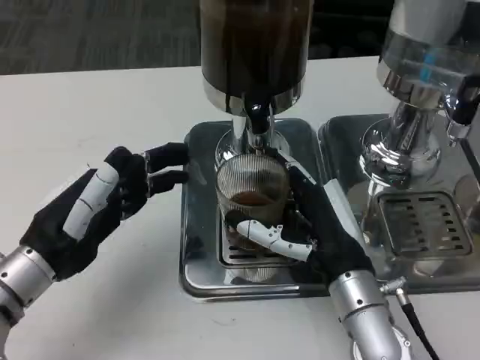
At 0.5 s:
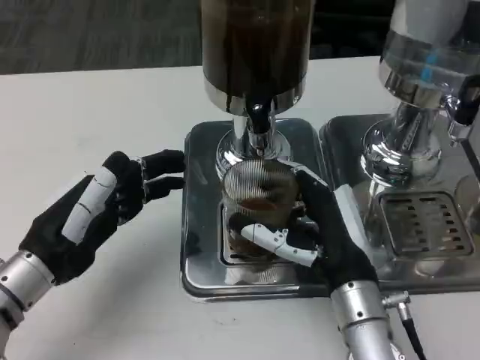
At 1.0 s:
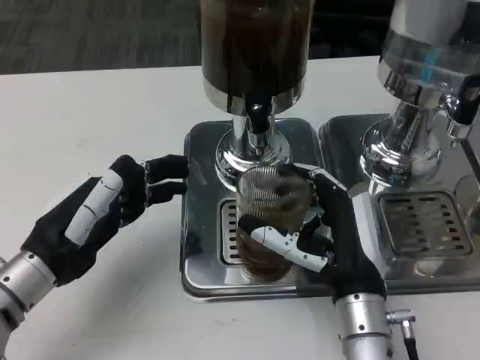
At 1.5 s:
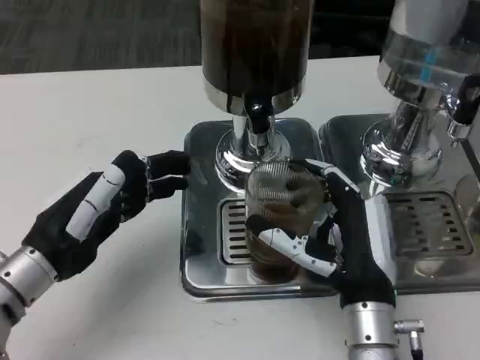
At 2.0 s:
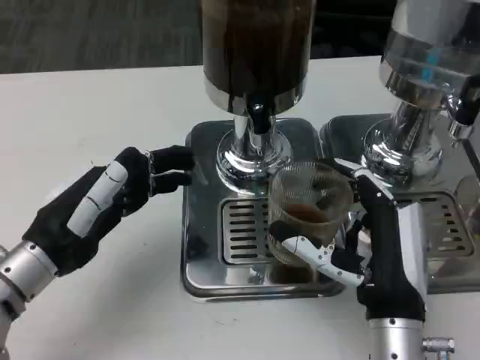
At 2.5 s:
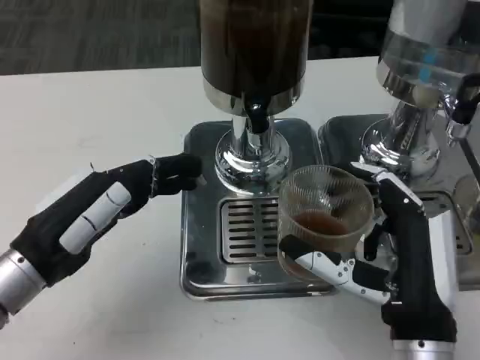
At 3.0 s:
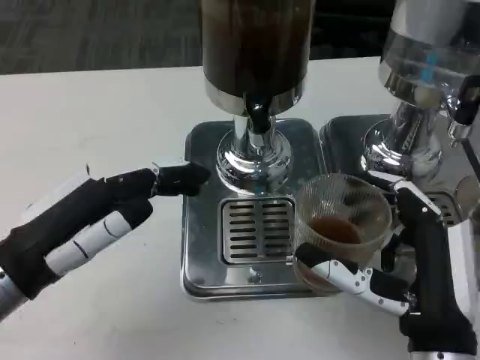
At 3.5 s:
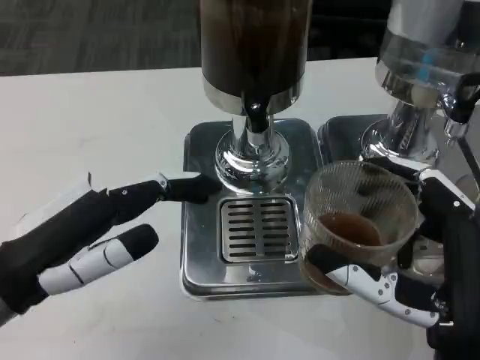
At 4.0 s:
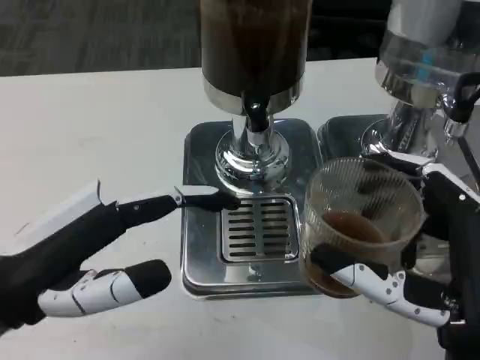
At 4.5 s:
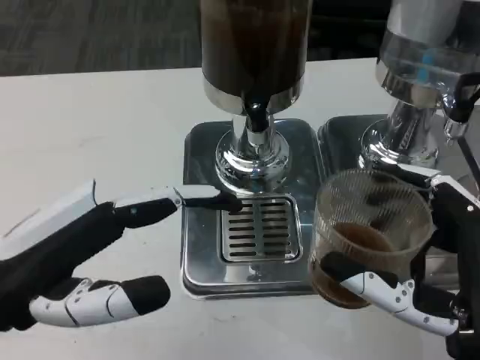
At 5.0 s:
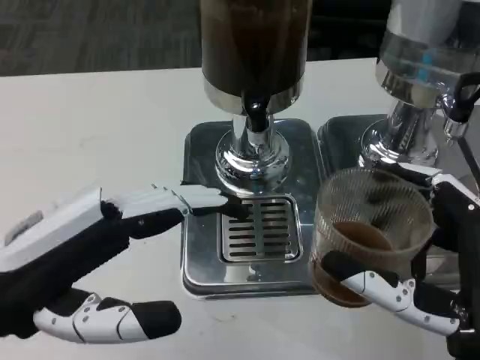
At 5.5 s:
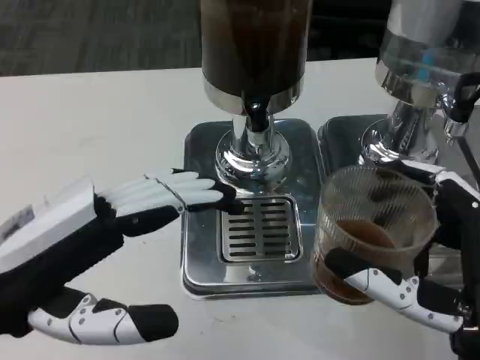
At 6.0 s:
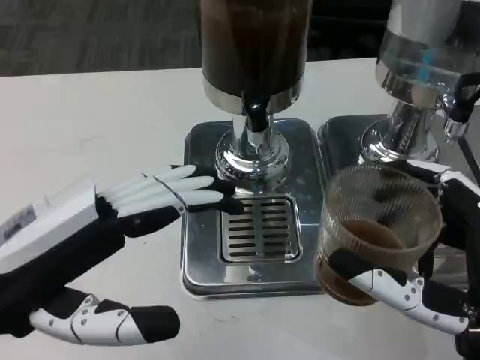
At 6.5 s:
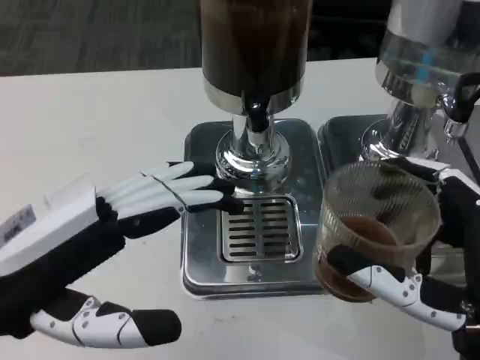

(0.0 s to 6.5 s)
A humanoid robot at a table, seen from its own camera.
Task of the whole recording: Grasp the cup under the faucet to collect the drink, then remove the cup.
2.0 s - 4.5 s: The left hand shifts roughly 10 cm upward and backward. Meanwhile the right hand goes about 10 cm backward and upward.
4.5 s - 6.5 s: The hands move only a little.

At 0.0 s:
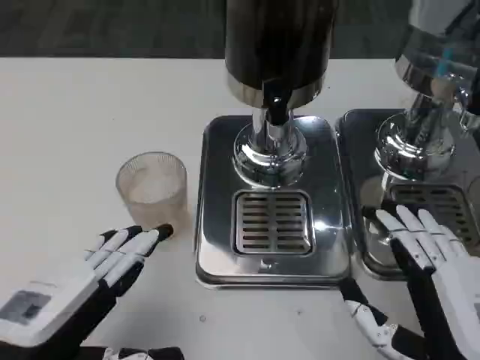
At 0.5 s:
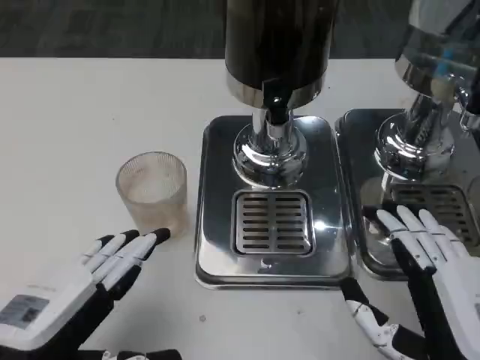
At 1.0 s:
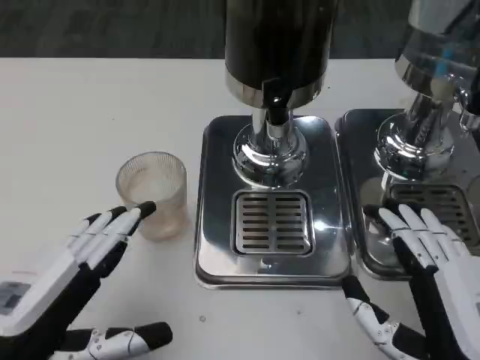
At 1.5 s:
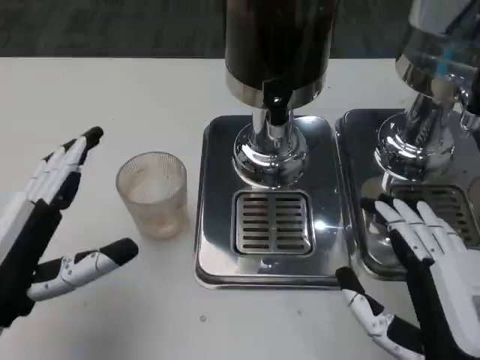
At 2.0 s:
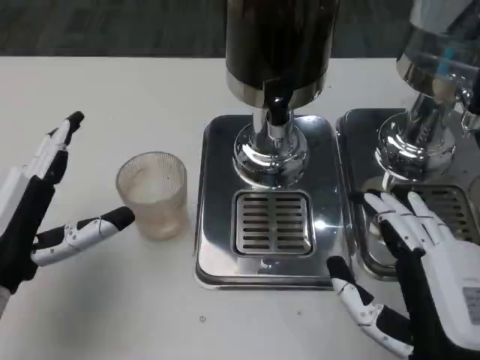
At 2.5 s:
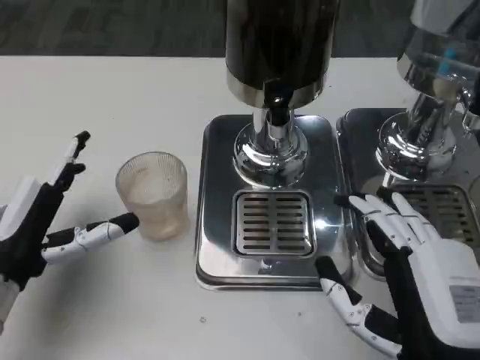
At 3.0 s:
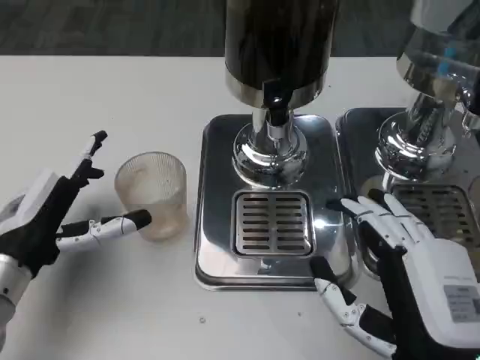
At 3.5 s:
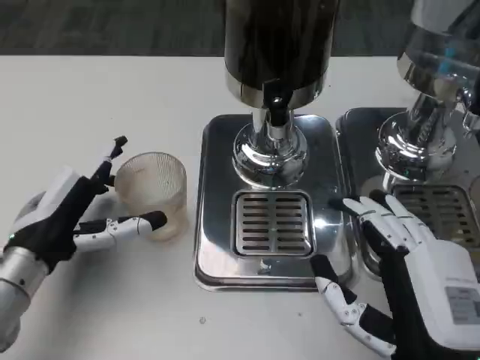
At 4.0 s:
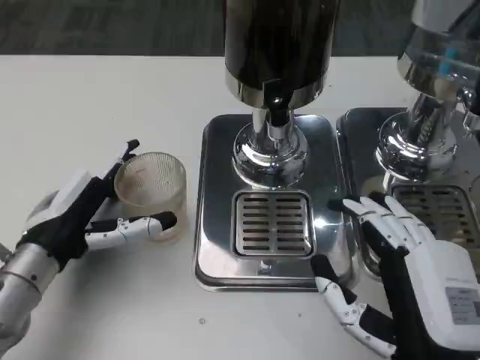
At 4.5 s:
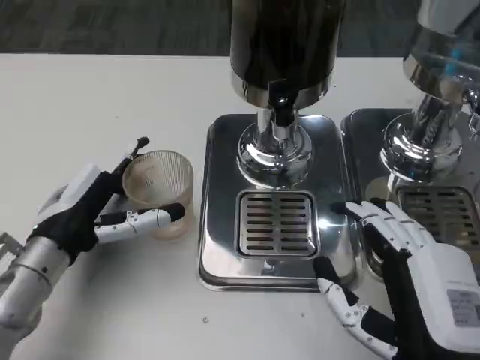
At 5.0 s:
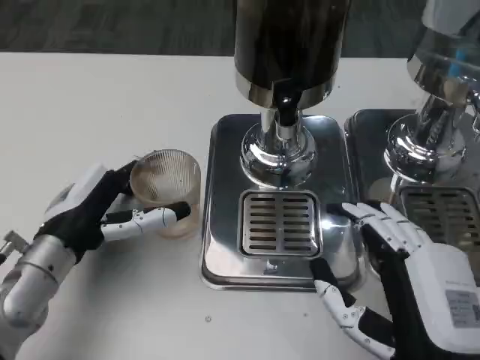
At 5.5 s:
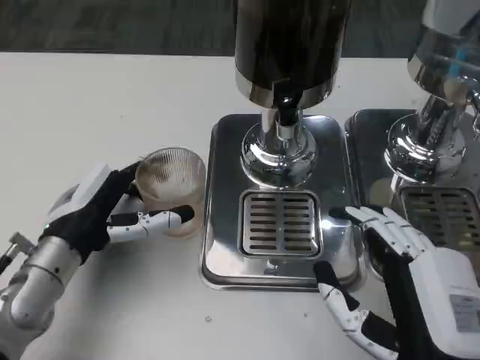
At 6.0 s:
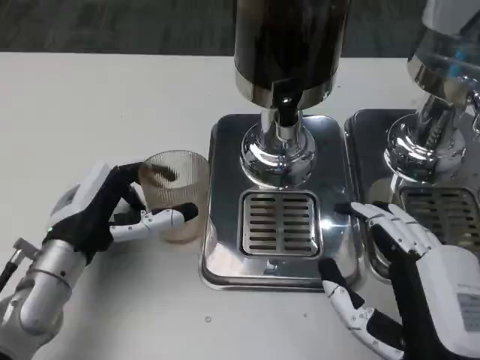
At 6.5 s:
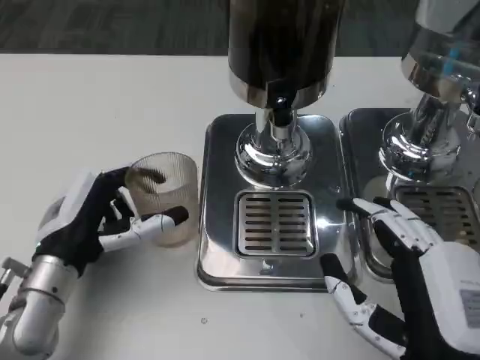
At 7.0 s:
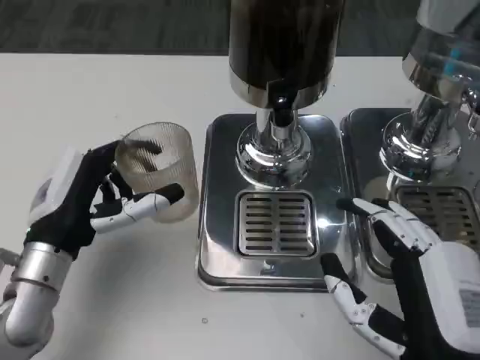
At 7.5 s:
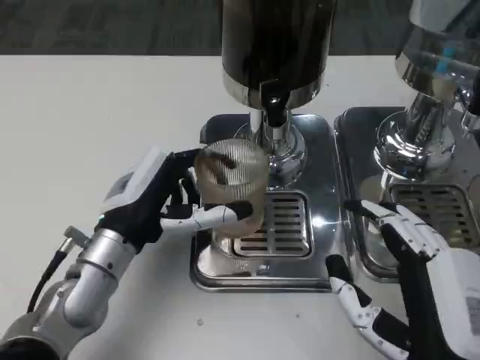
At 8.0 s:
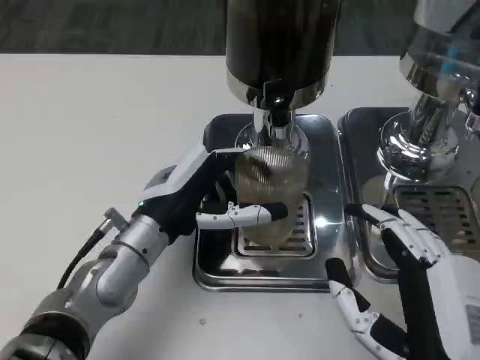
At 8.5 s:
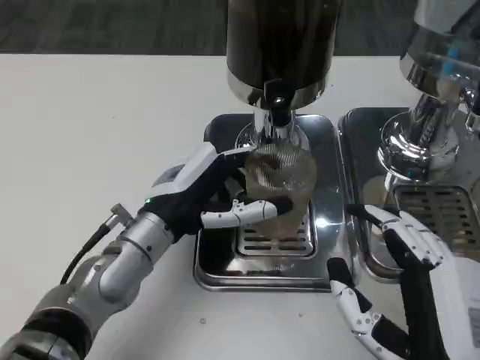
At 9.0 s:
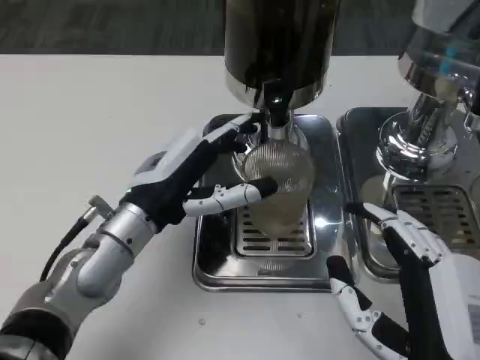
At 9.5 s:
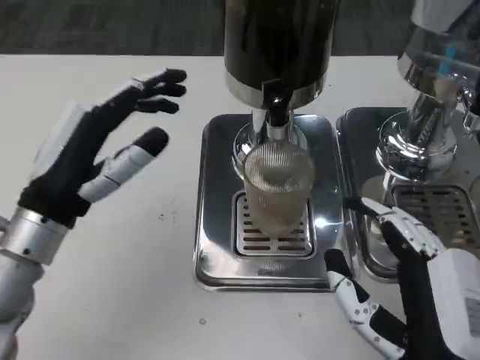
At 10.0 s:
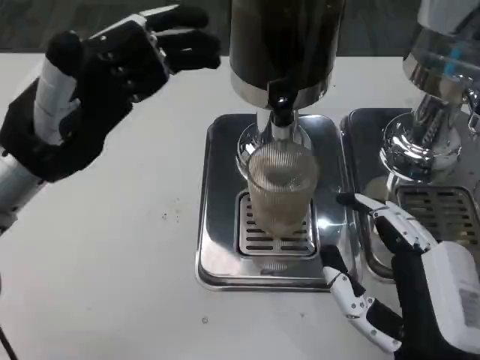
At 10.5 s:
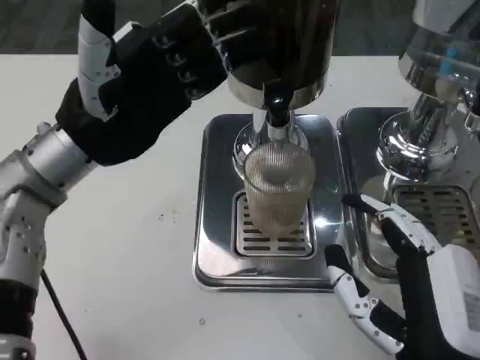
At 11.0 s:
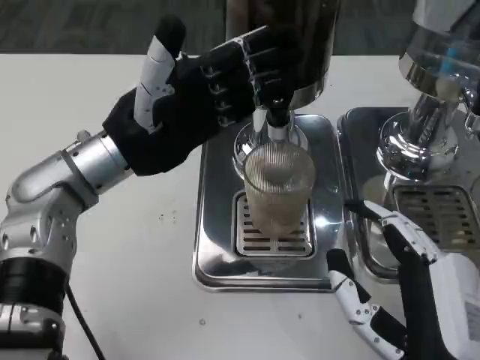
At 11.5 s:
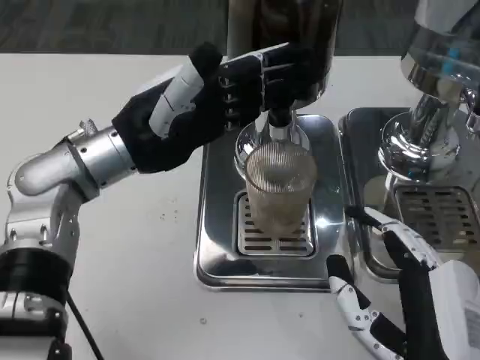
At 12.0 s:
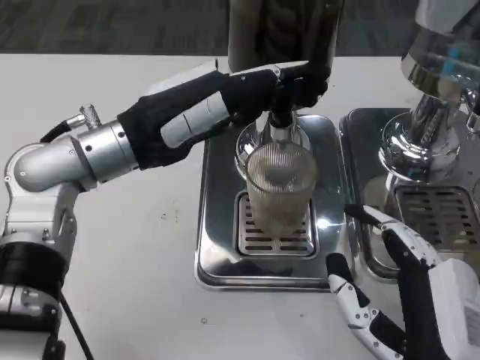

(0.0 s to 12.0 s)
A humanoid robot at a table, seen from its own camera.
Task of the whole recording: Grasp the cup under the faucet to collect the drink, then remove the cup.
0.0 s - 2.0 s: The left hand shifts approximately 10 cm forward.
2.0 s - 4.0 s: The left hand is displaced forward by some 5 cm.
6.0 s - 8.0 s: The left hand shifts some 5 cm to the right.
8.0 s - 10.0 s: The left hand moves upward and to the left, some 15 cm.
10.0 s - 12.0 s: The left hand shifts about 10 cm to the right and forward.

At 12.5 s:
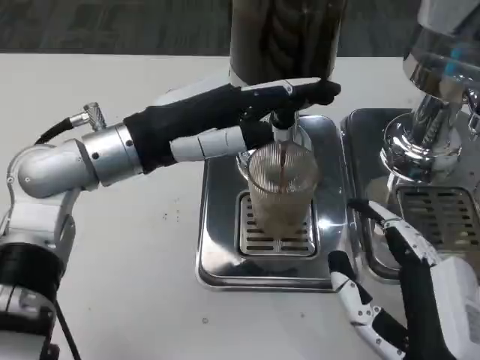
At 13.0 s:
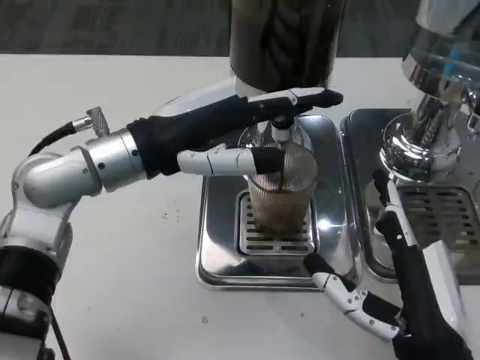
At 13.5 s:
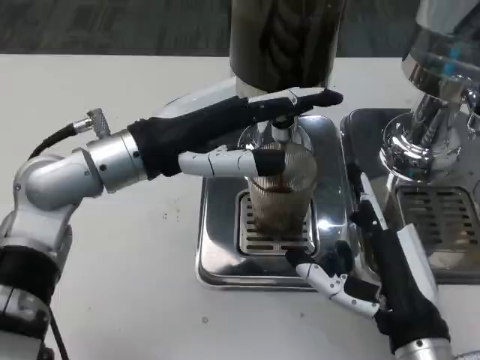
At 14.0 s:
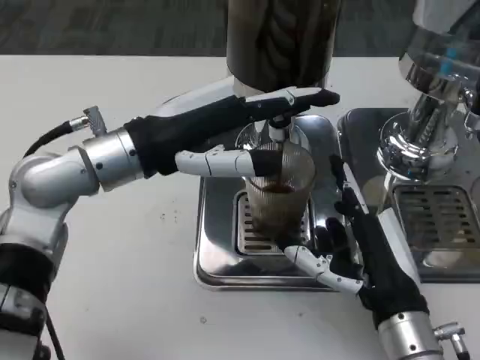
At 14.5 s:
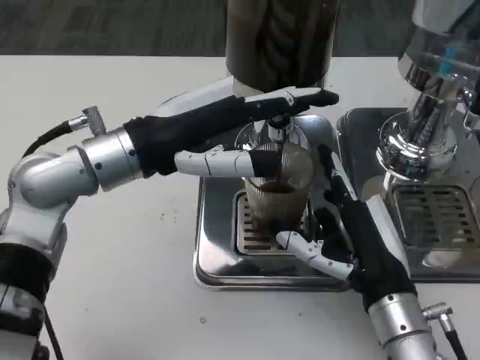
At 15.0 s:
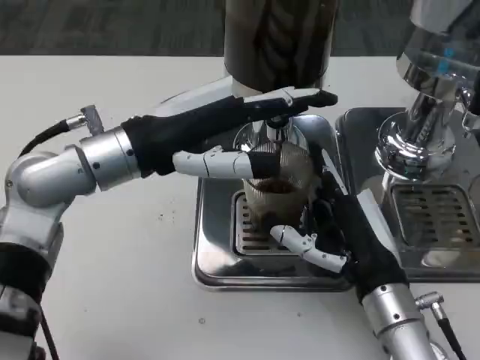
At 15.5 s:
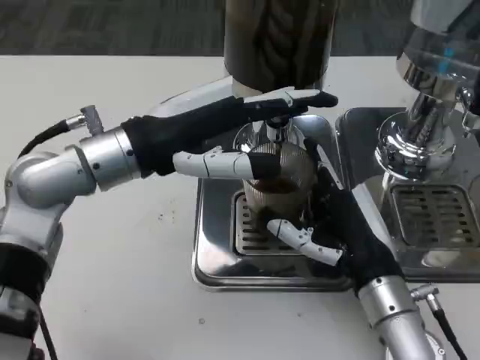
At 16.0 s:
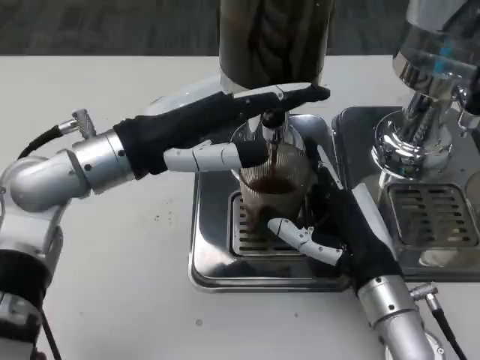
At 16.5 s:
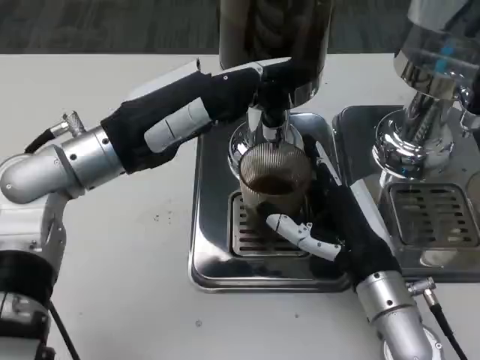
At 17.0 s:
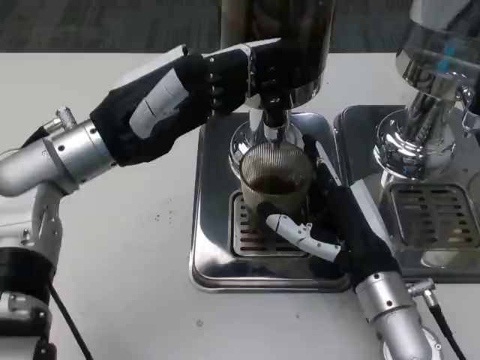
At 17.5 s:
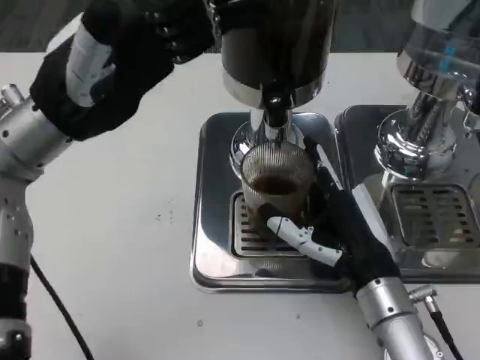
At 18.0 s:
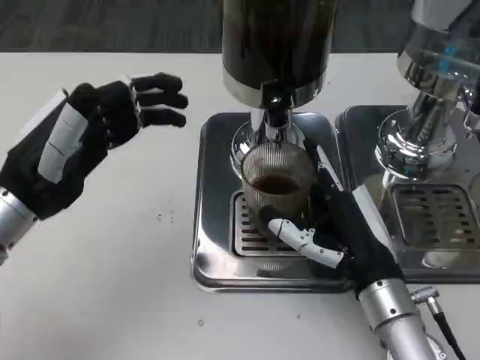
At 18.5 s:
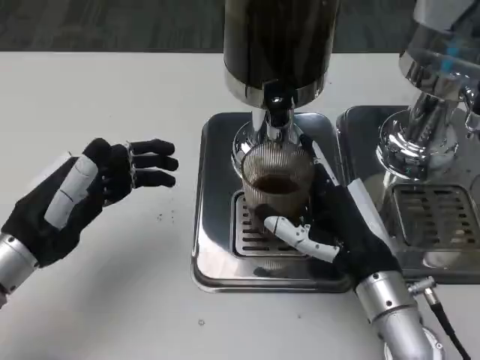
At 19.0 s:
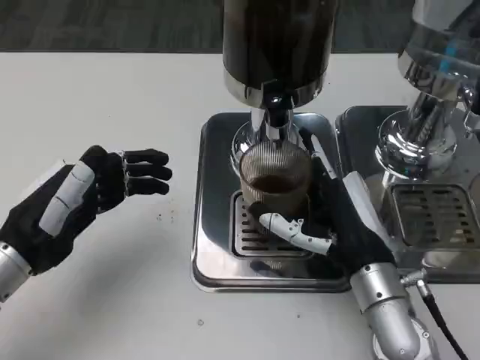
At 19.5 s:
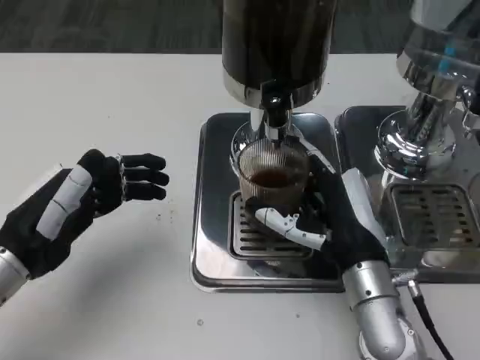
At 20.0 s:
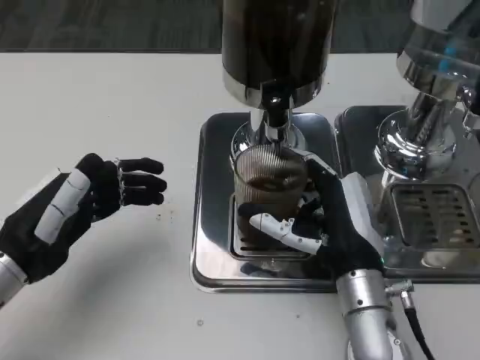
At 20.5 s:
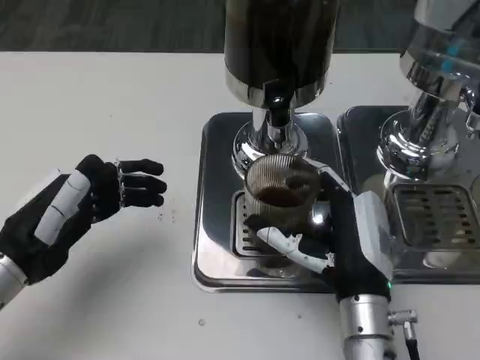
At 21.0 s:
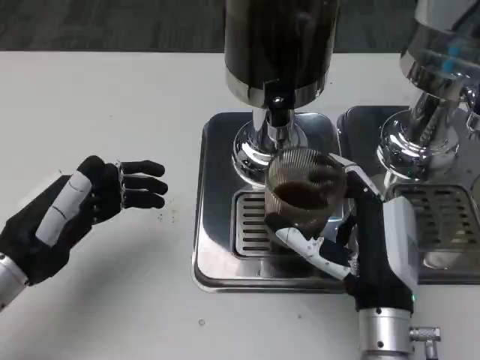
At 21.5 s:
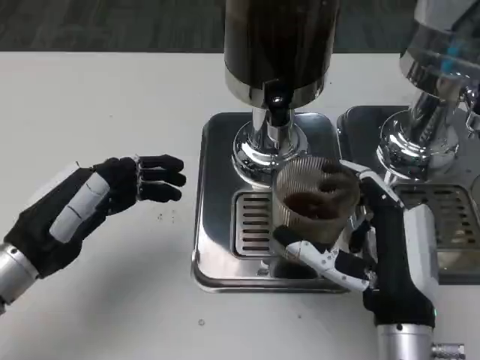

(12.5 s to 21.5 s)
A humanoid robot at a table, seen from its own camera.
Task of the whole recording: Grasp the cup under the faucet to collect the drink, then remove the cup.
12.5 s - 14.5 s: The right hand is displaced forward by about 10 cm.
17.0 s - 19.5 s: The left hand is displaced downward, backward and to the left by approximately 15 cm.
19.5 s - 21.5 s: The right hand goes approximately 5 cm backward.
